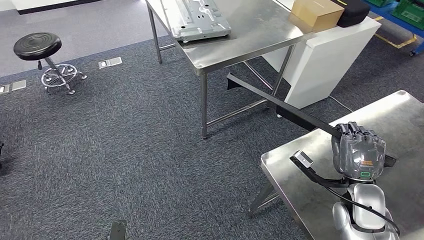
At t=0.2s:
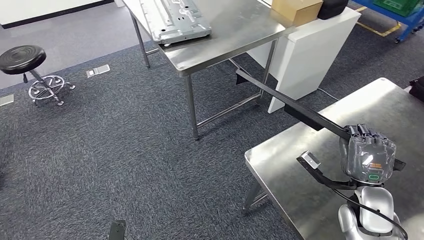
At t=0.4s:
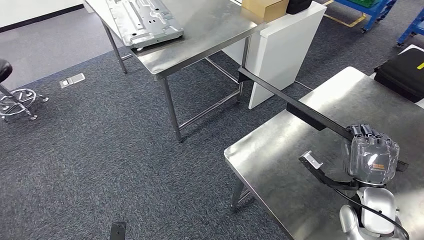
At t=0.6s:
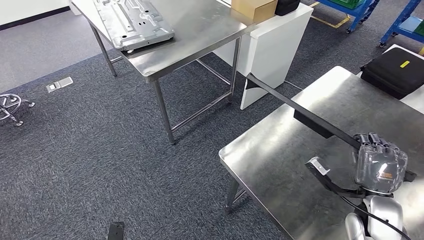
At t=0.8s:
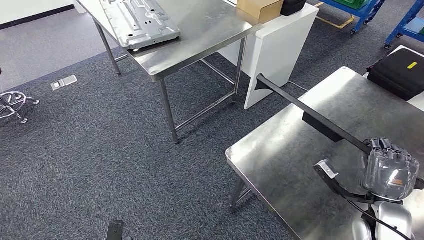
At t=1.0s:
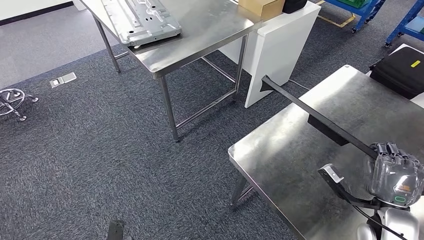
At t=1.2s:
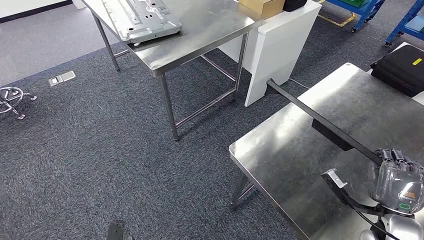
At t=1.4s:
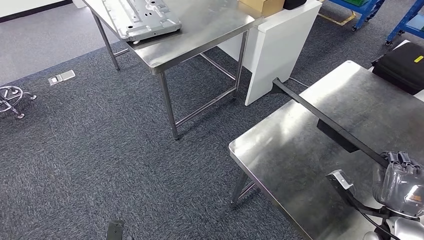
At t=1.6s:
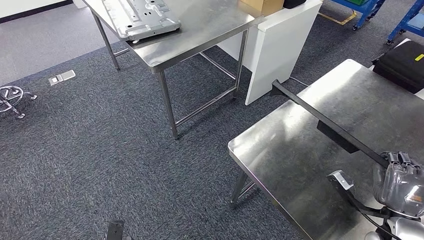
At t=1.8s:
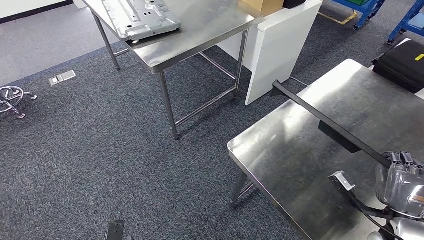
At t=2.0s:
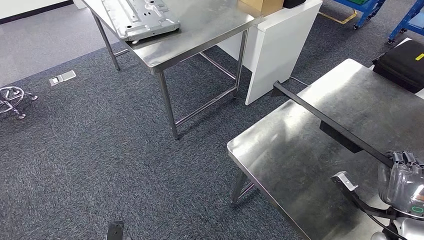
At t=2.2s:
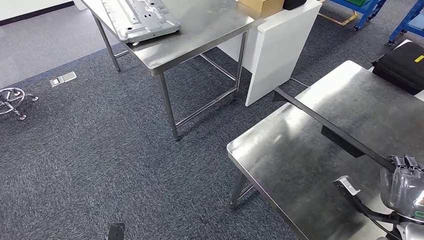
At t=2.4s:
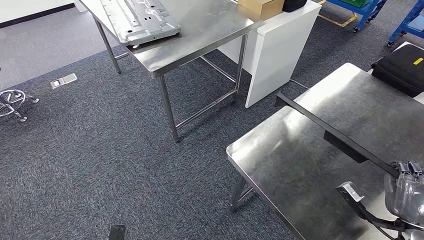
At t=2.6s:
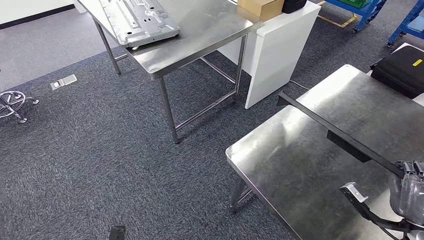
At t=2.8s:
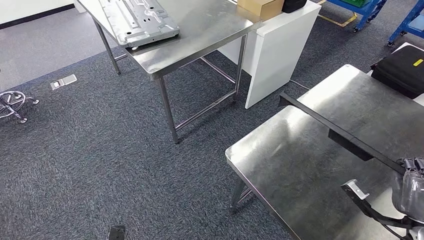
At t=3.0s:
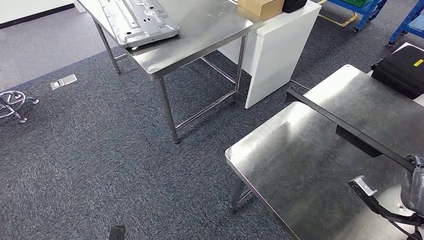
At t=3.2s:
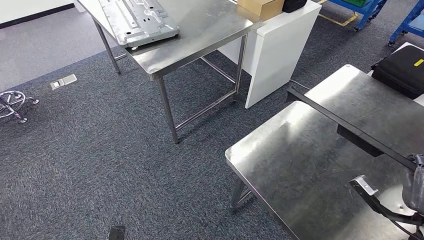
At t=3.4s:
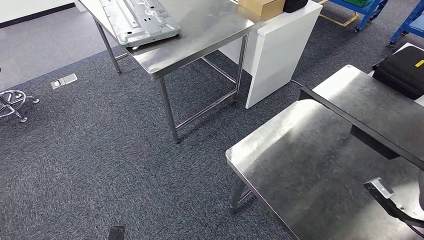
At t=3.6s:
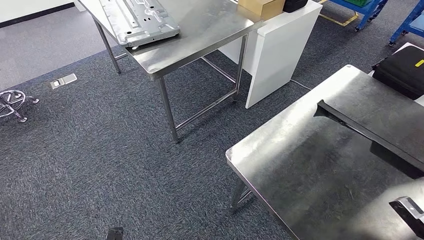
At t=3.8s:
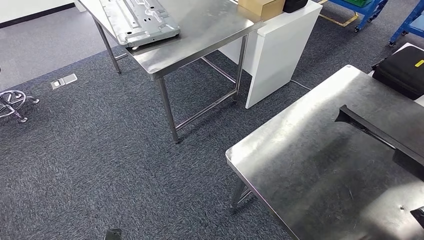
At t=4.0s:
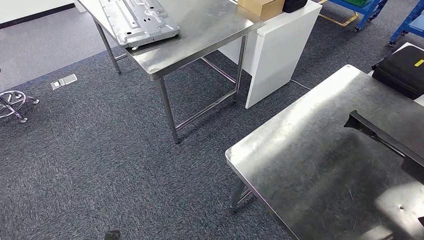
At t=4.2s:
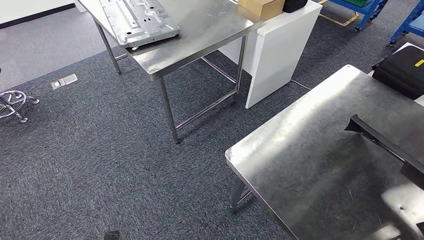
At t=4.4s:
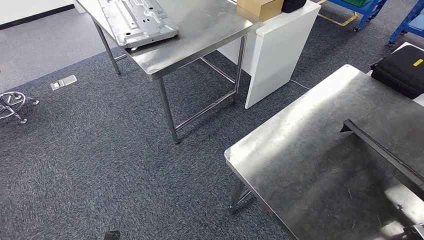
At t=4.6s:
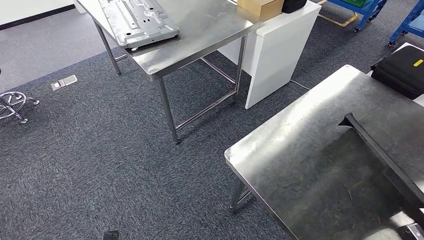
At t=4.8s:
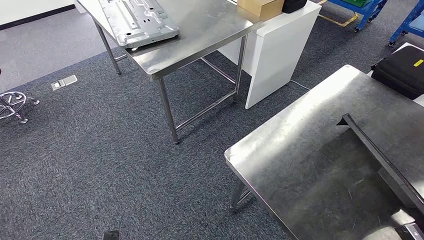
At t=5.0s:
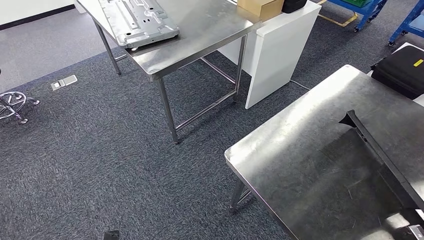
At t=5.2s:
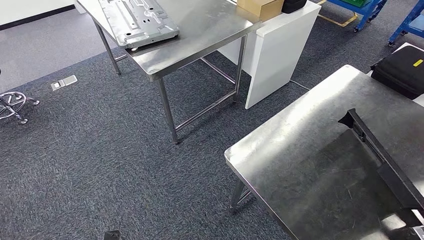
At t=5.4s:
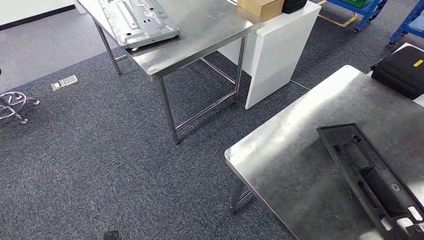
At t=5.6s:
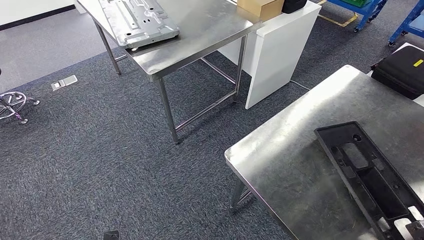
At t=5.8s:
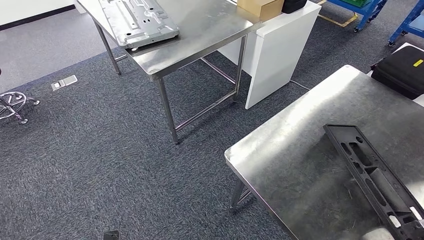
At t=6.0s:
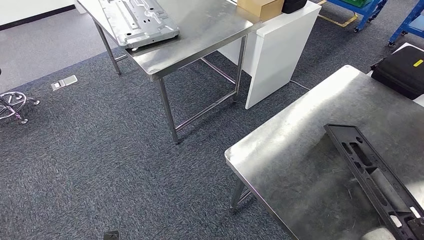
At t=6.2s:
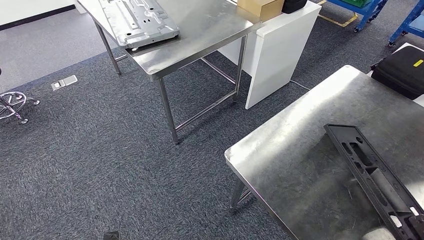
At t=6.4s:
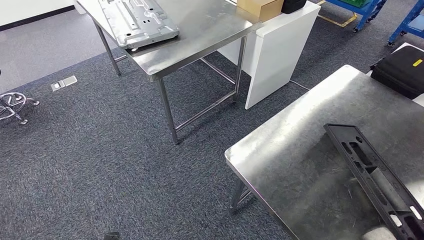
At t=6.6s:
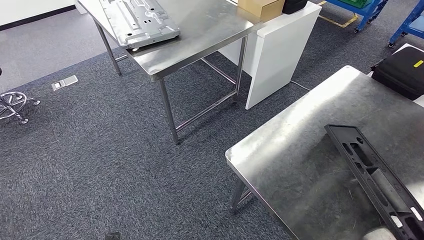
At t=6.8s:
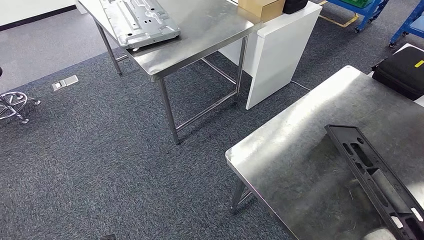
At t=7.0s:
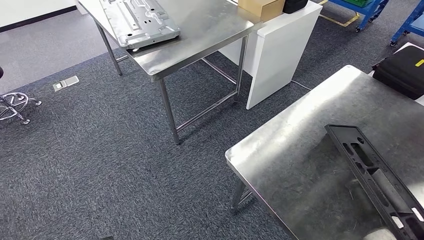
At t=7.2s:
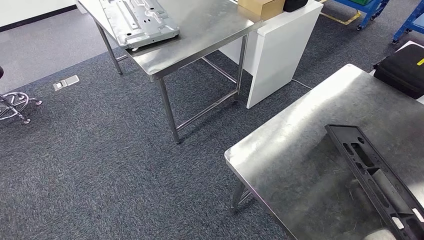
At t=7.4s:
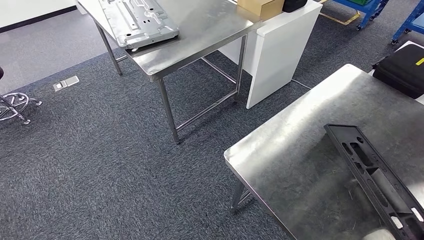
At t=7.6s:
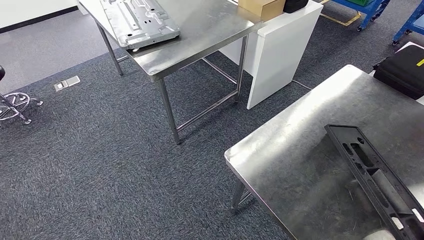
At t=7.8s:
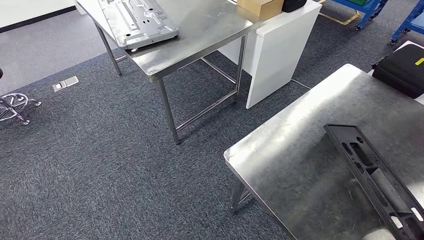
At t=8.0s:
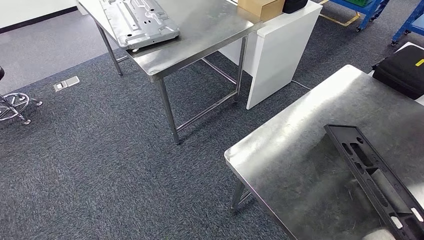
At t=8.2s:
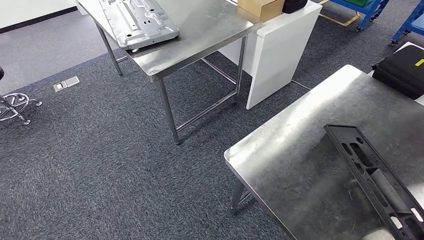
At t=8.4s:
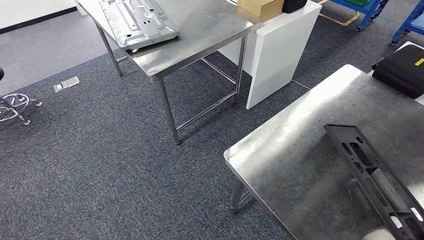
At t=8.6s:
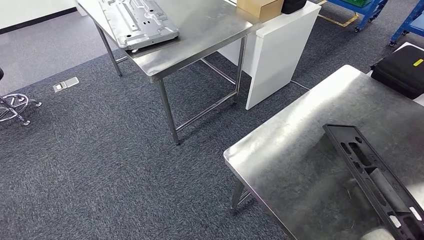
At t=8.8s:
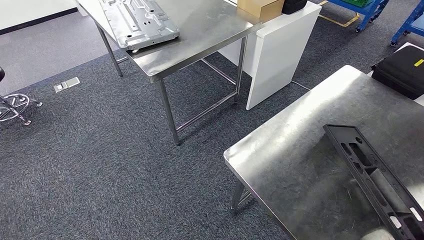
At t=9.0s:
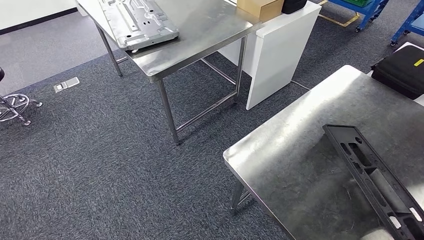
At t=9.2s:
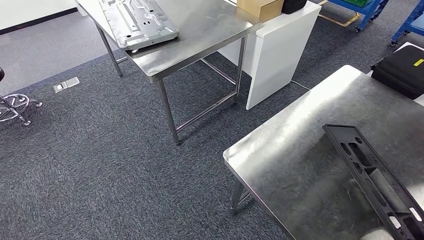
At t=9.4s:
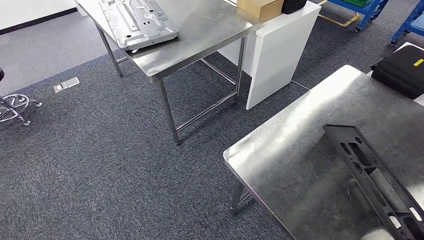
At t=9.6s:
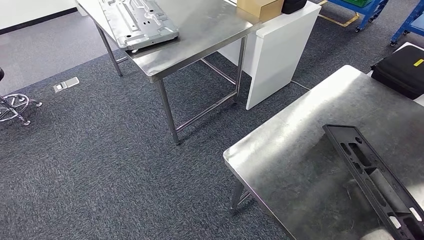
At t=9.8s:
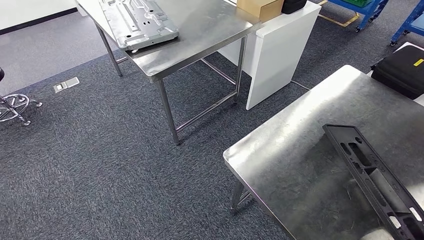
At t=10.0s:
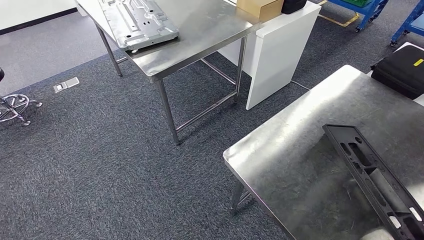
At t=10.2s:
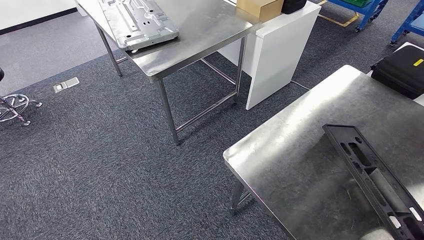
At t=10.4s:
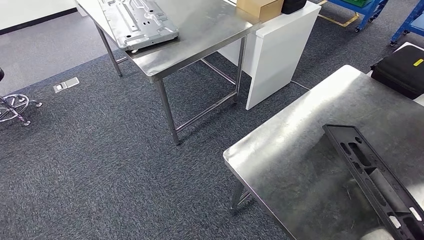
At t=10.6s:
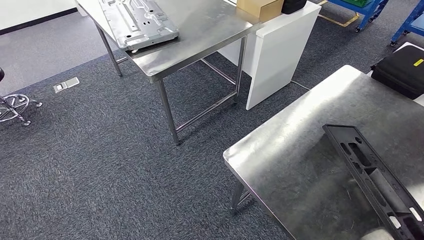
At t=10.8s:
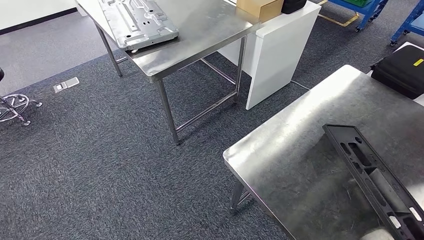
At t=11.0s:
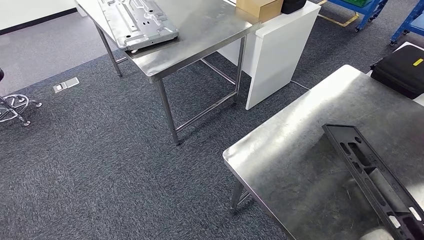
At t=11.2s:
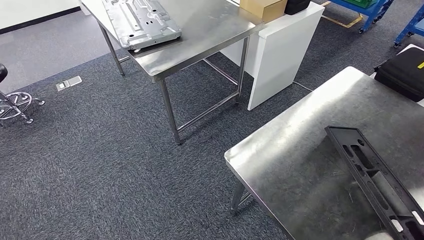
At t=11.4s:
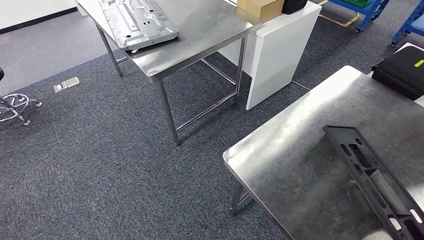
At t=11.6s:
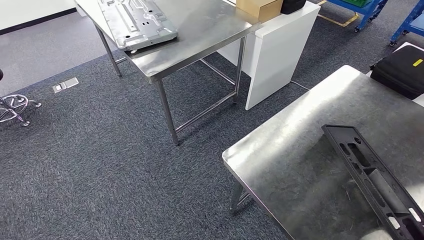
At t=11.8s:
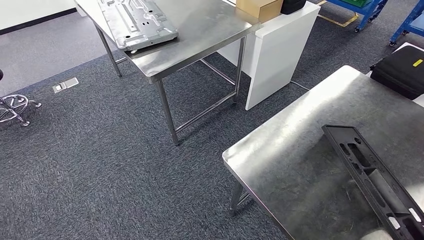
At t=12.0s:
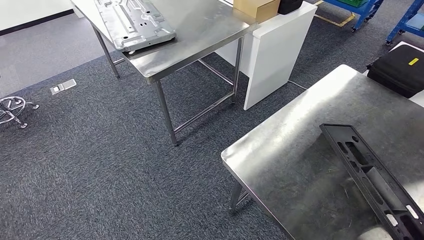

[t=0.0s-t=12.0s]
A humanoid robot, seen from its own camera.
Step, t=0.0s to t=2.2s: Move the large material to the workbench.
Step, t=2.4s to t=8.6s: Insert the large material into the corresponding slot on the workbench.
t=1.6s to t=3.0s: The right hand changes place by approximately 5 cm.
t=3.0s to t=4.4s: The right hand heads backward and to the right, covering roughly 15 cm.
t=4.4s to t=6.0s: The hands stay close to where they were, moving slightly.
t=6.0s to t=7.6s: The right hand travels upward by roughly 50 cm.
t=7.6s to t=9.0s: The right hand heads downward and backward, covering some 20 cm.
t=10.4s to t=12.0s: The right hand shifts approximately 10 cm downward.

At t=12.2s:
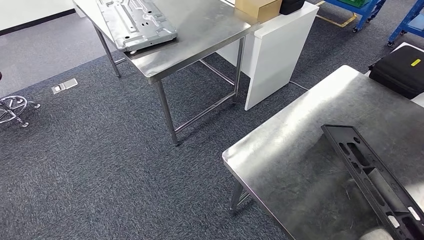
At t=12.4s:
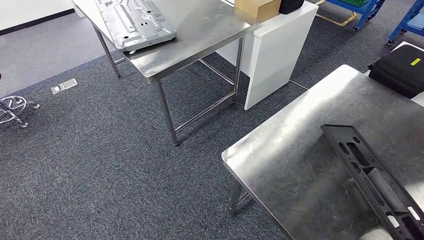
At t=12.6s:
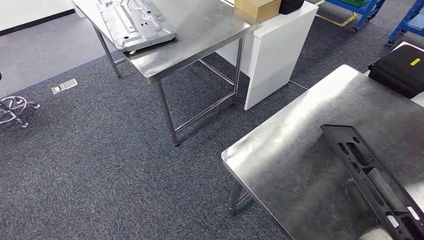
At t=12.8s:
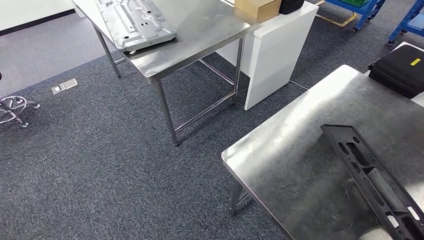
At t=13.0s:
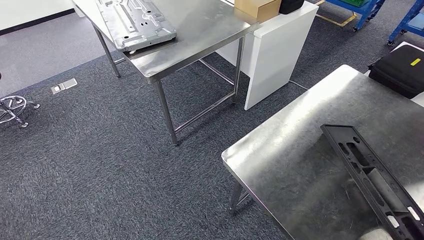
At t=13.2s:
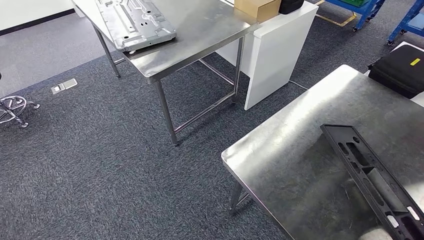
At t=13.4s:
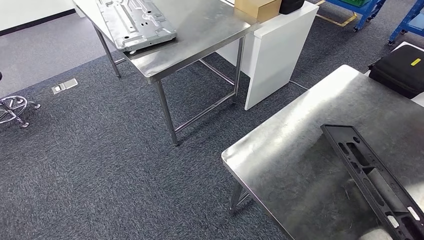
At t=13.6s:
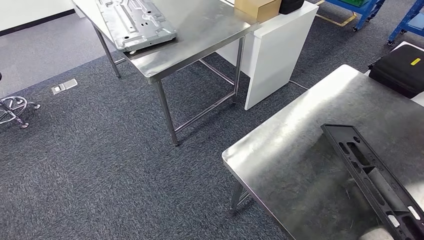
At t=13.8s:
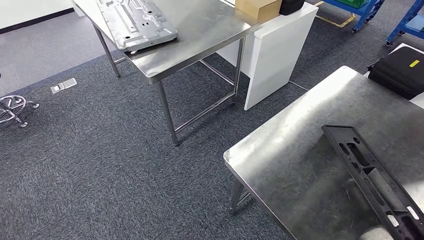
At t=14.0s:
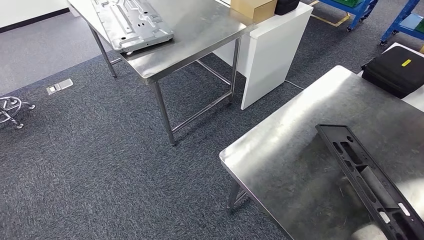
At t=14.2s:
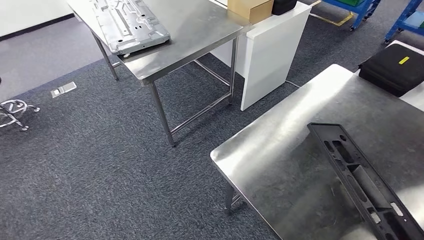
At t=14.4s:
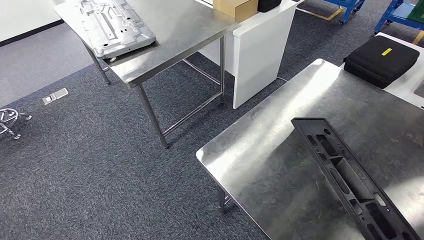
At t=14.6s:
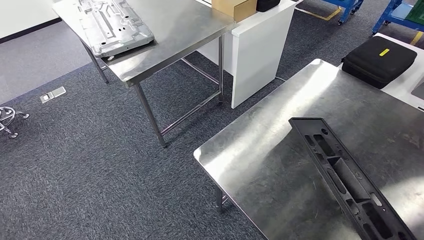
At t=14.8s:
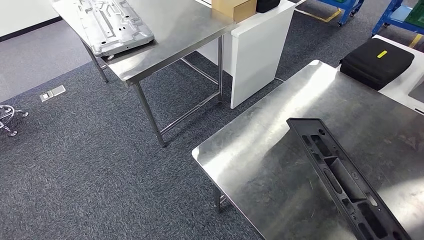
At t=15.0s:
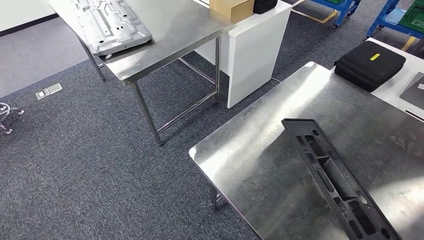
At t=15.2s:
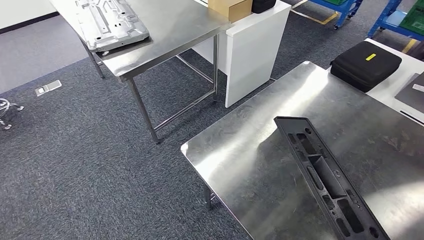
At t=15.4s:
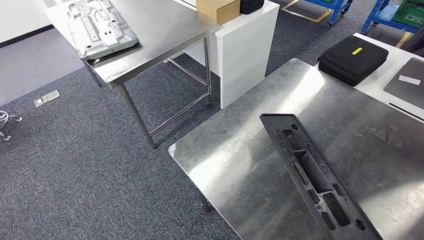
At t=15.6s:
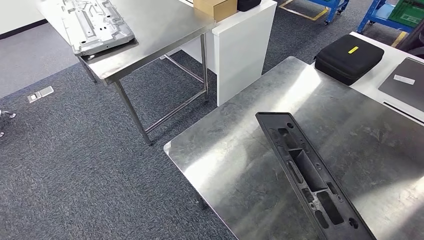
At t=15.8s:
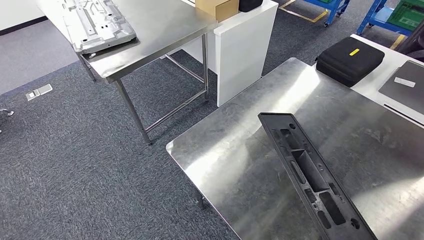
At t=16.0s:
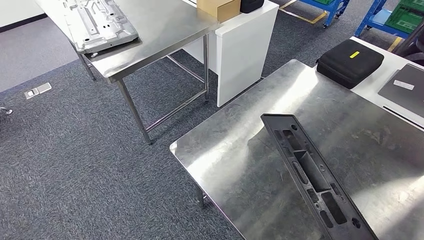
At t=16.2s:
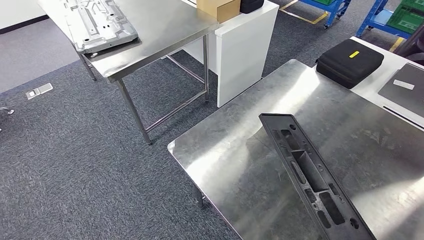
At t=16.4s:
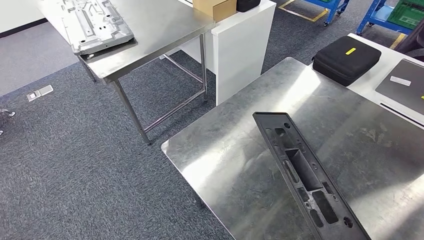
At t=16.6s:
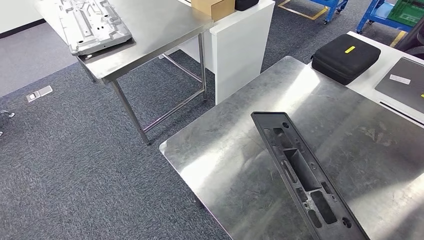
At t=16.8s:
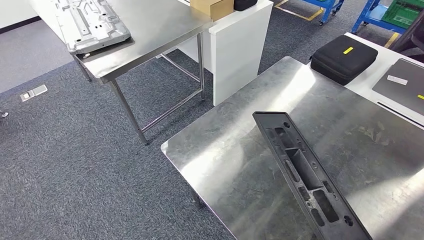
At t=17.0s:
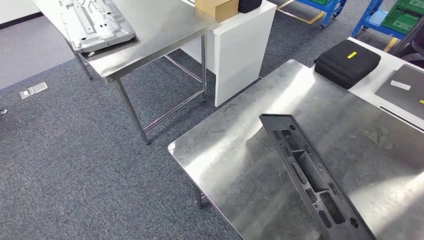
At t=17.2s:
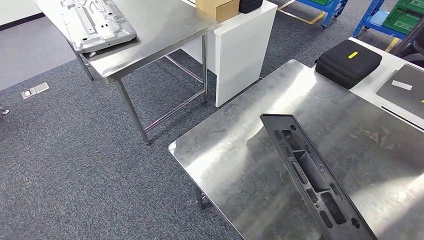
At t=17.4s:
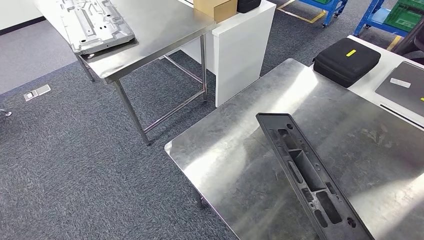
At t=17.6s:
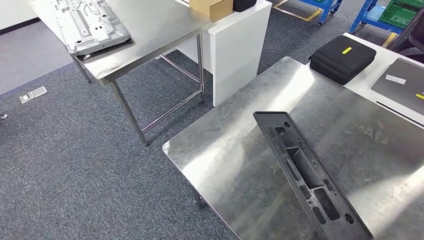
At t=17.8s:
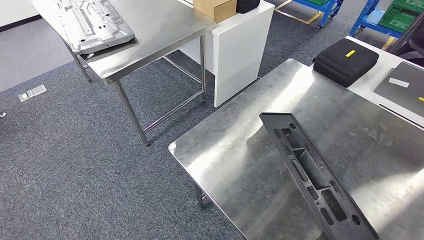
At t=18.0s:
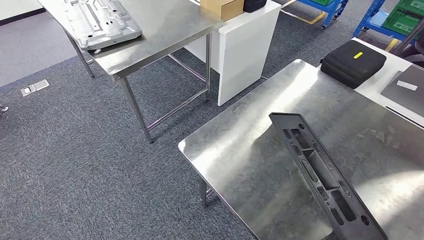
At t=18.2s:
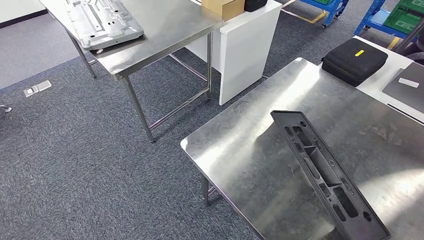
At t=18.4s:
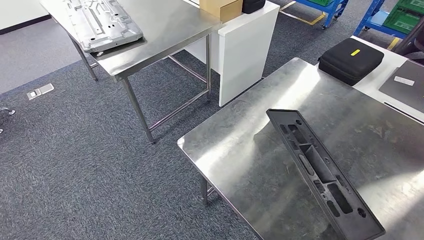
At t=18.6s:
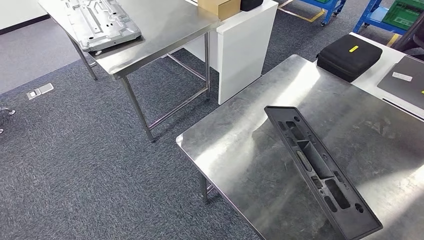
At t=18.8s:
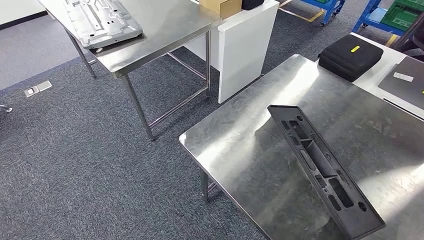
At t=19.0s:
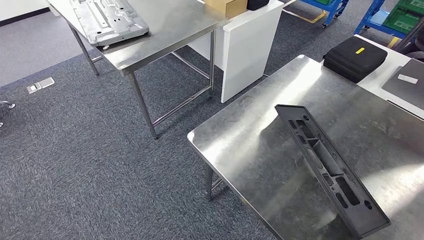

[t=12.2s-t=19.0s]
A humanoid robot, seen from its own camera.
t=12.2s to t=13.6s: The right hand shifts roughly 5 cm to the left.
